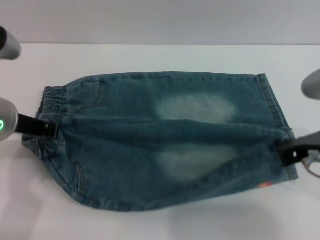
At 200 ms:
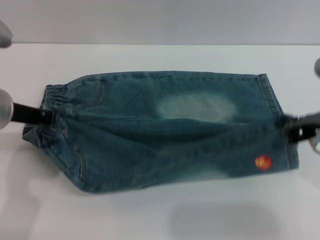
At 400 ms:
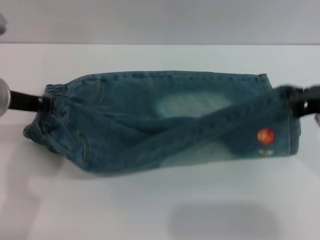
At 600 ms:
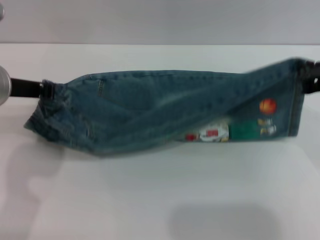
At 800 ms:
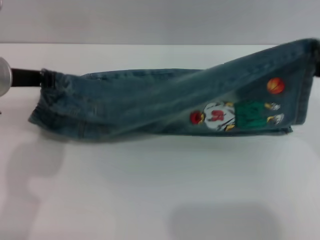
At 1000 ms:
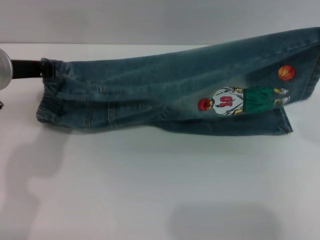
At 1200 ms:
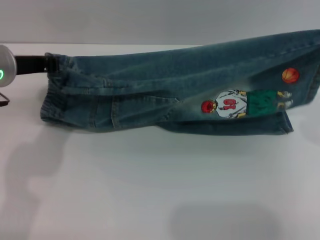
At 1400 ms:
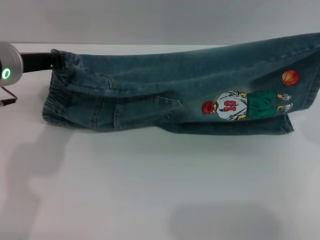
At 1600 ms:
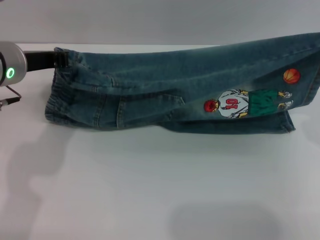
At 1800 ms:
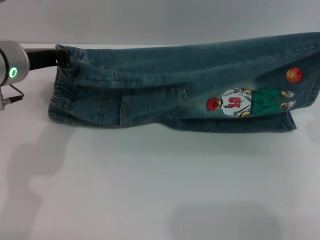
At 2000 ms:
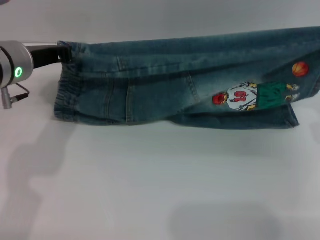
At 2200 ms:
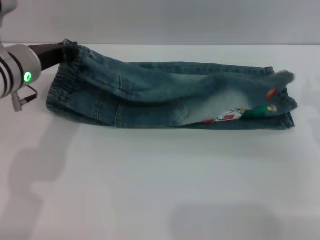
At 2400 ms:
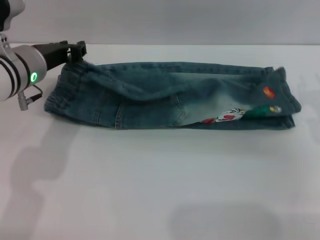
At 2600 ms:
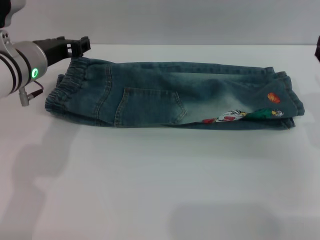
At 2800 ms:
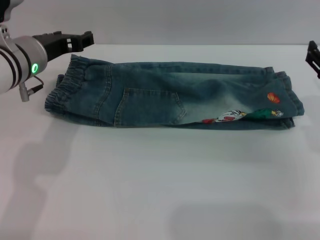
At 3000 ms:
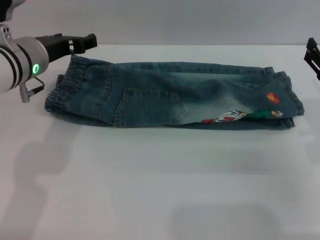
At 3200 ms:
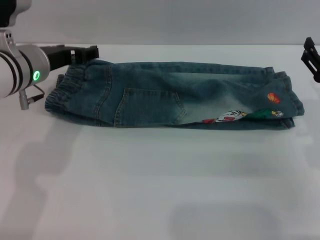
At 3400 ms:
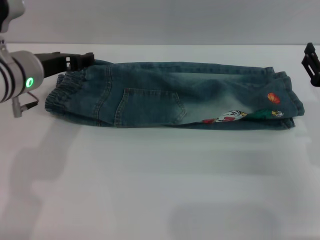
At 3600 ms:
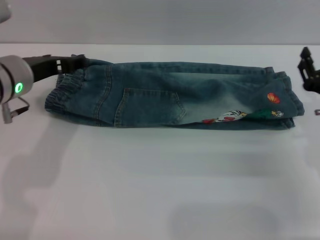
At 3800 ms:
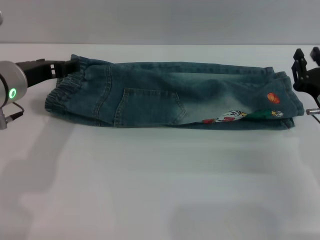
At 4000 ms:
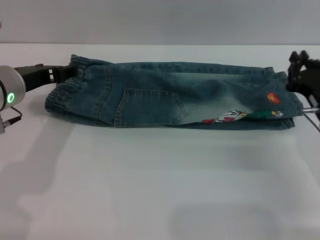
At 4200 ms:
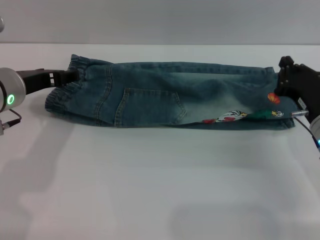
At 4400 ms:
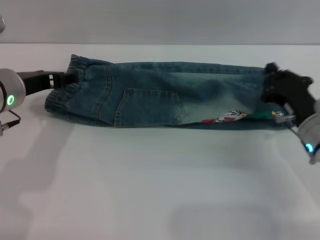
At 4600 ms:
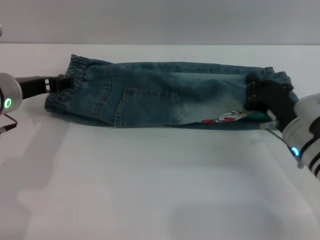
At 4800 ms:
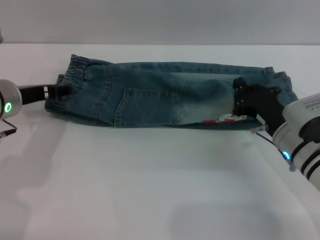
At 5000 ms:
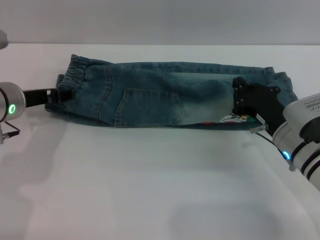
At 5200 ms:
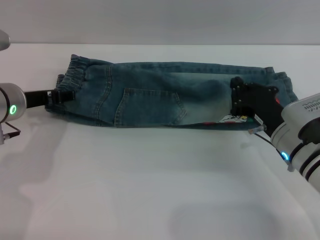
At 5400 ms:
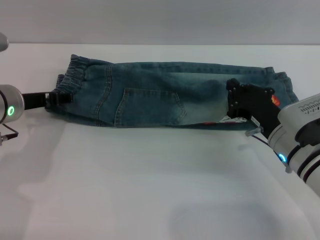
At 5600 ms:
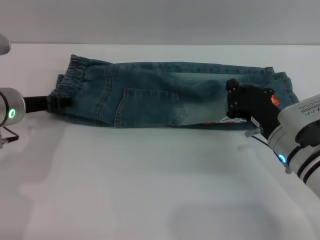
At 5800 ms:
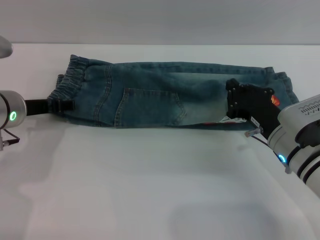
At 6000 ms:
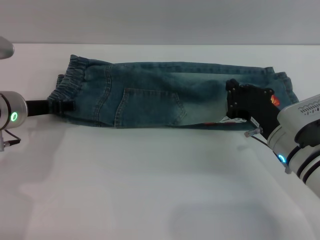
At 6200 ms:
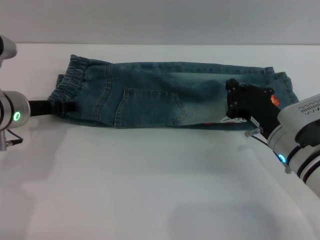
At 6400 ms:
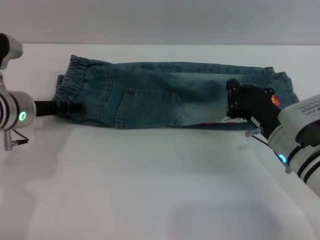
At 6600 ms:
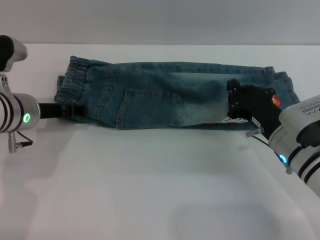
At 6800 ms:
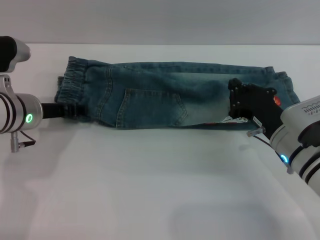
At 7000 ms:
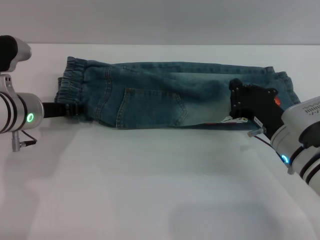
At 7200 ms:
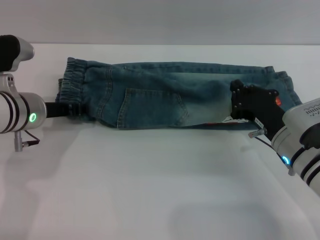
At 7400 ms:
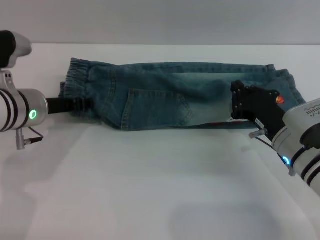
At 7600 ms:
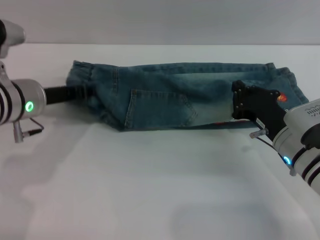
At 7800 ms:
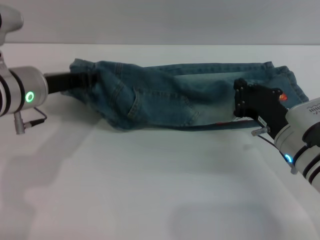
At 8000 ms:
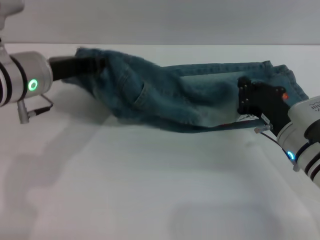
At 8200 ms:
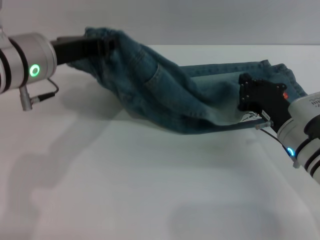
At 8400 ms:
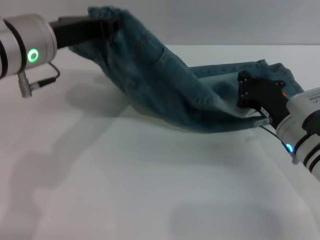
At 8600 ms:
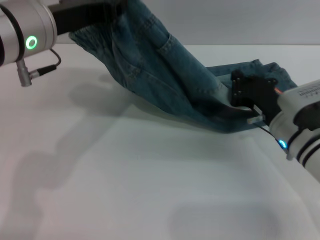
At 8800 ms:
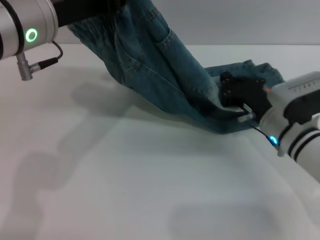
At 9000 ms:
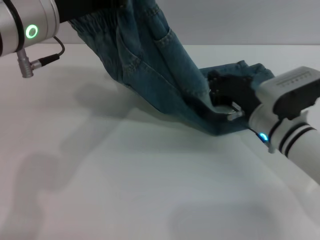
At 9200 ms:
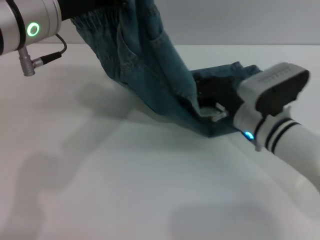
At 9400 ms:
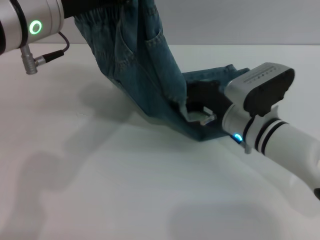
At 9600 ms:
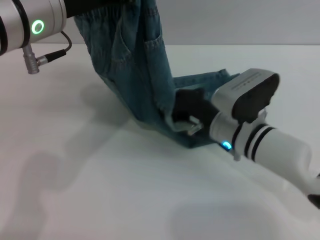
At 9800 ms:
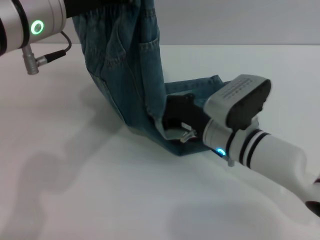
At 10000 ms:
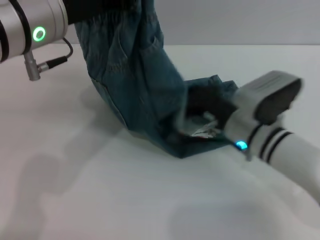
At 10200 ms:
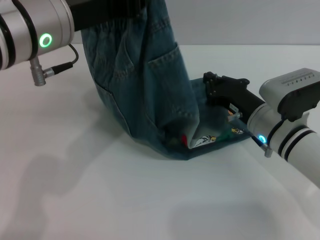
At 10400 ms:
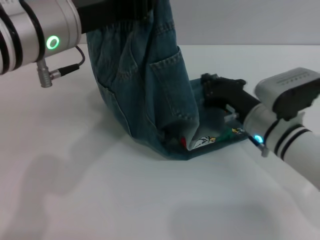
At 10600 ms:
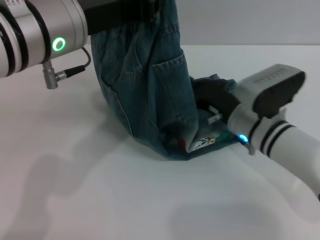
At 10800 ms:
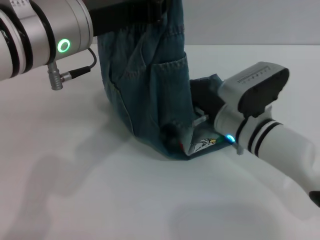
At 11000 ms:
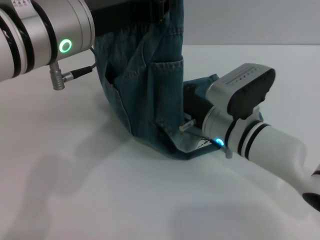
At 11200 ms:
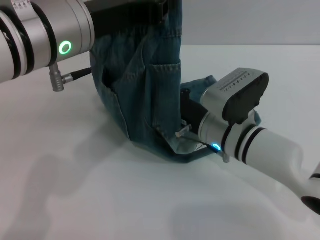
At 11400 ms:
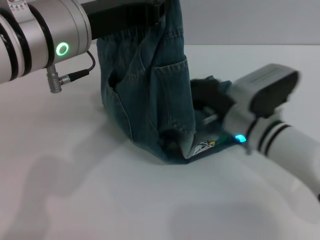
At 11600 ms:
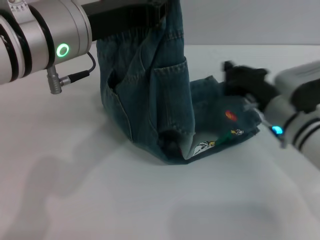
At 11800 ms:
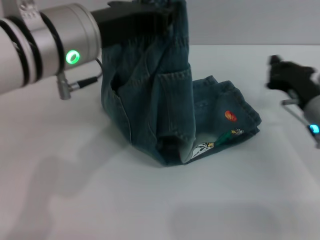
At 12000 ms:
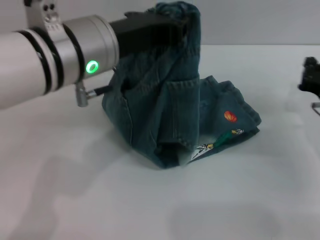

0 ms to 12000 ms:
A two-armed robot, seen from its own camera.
Step, 0 ms to 2800 ms: Fold the bottom of the pants upward with both grippers.
0 ms to 1600 ms: The right gripper goes about 5 cm to the right.
1600 ms to 3000 ms: The right gripper travels downward by approximately 5 cm, and opens, while the left gripper opens its fingers.
3000 ms to 4400 ms: The right gripper travels downward by approximately 5 cm, and closes up, while the left gripper changes place by about 5 cm.
4400 ms to 6000 ms: The grippers stay close to where they were, moving slightly.
6000 ms to 7600 ms: The left gripper closes.
7600 ms to 9000 ms: The right gripper moves some 5 cm; the left gripper shifts some 15 cm upward.
10400 ms to 12000 ms: The right gripper shifts some 10 cm to the right.

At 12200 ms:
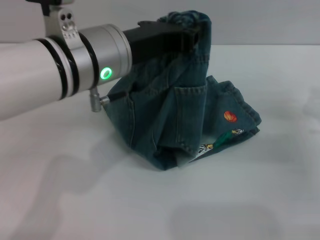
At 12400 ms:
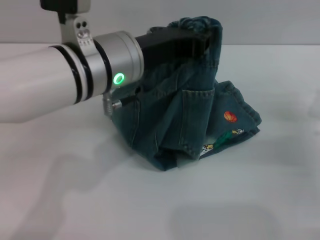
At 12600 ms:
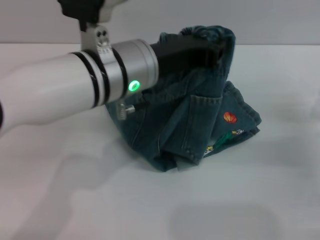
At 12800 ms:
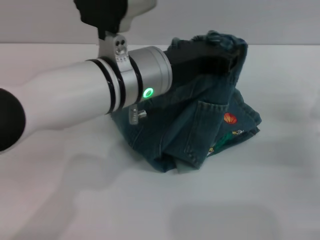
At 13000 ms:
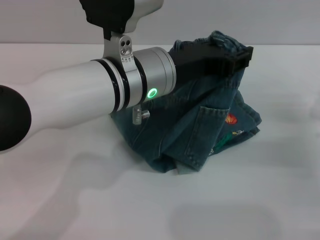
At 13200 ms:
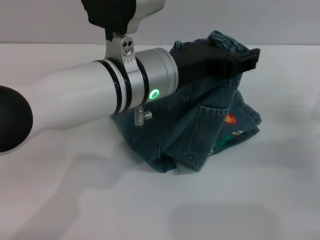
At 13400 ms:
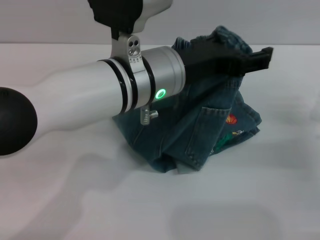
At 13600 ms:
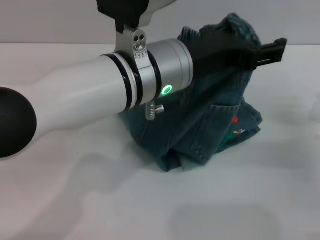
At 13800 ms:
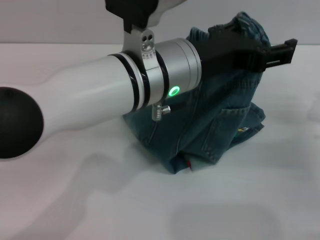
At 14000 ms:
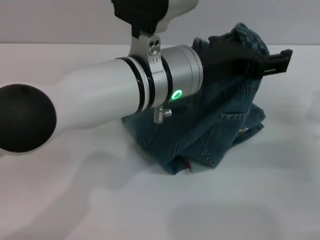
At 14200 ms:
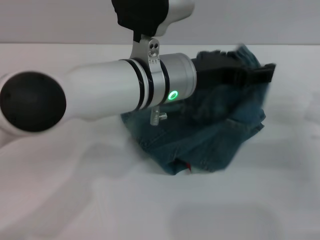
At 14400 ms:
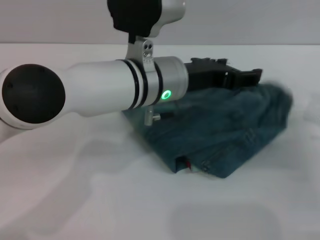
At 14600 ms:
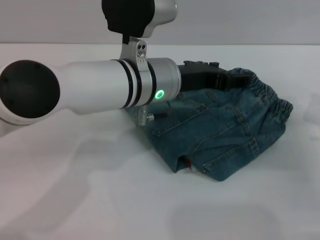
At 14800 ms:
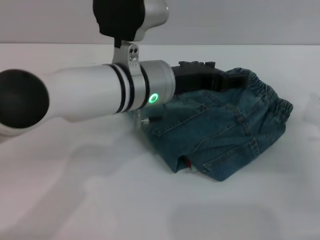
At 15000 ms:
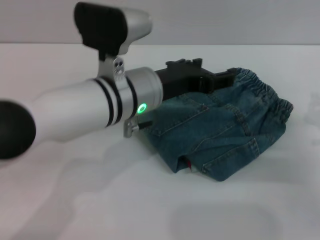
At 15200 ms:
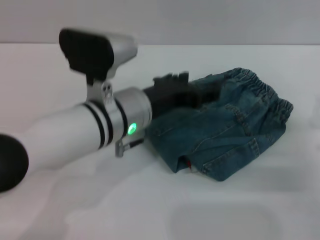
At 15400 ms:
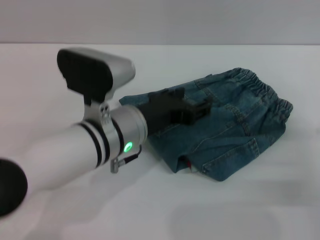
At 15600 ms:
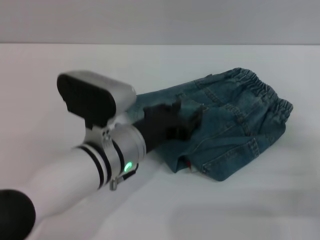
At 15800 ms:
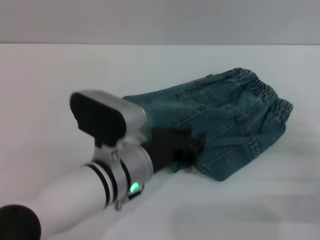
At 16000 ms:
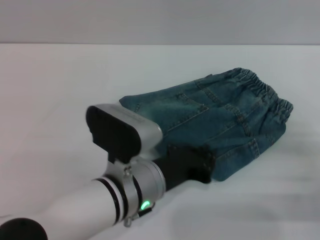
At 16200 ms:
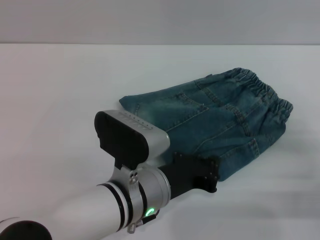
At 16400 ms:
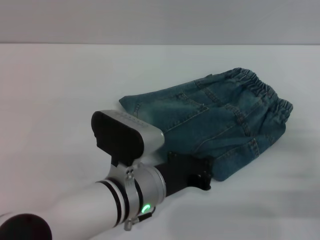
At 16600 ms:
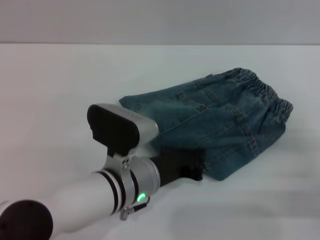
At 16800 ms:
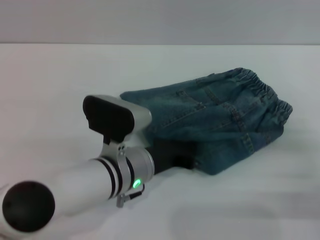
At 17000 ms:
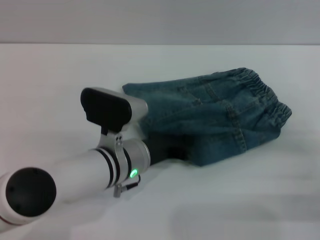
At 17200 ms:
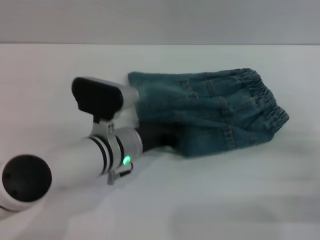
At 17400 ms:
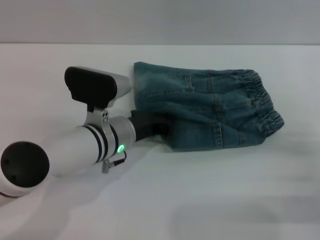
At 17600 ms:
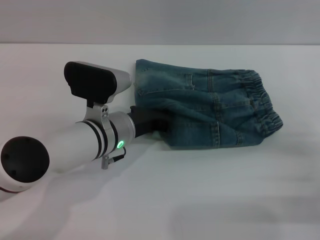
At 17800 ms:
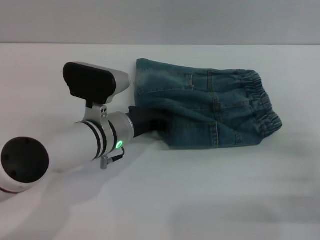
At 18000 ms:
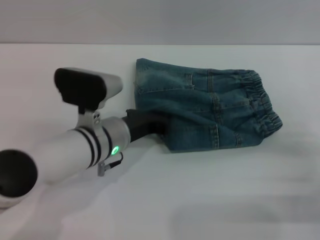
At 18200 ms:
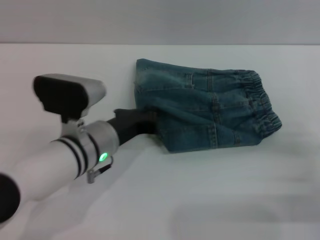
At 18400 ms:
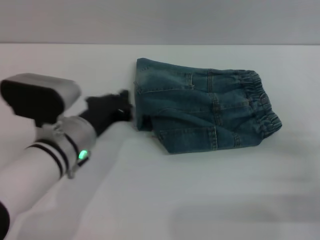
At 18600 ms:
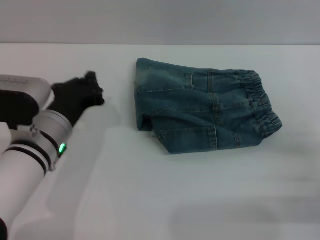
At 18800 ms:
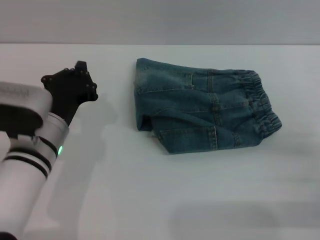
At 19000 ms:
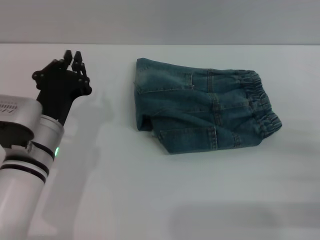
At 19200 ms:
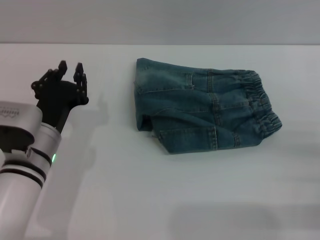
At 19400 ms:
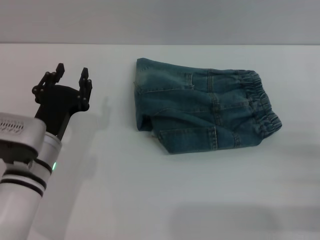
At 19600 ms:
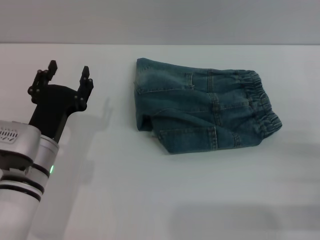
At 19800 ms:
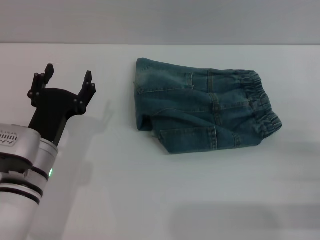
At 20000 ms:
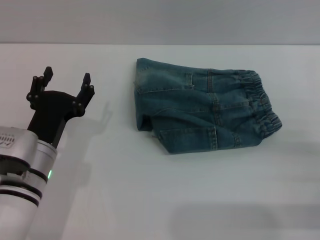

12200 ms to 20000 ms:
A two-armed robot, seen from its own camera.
Step, 12200 ms to 14600 ms: Fold the pants from left to right with the left gripper.
Step, 14800 ms to 18400 ms: Place the folded trousers onto the center area with the left grippers.
12200 ms to 13800 ms: The left gripper shifts about 5 cm to the right, and opens its fingers.
13800 ms to 15400 ms: The left gripper travels downward by approximately 10 cm; the right gripper heads backward, covering approximately 5 cm.
15400 ms to 16800 ms: The left gripper moves downward, approximately 5 cm, and closes up.
16800 ms to 18400 ms: The left gripper travels to the left by approximately 5 cm.
18400 ms to 20000 ms: The left gripper moves approximately 5 cm, and opens its fingers. The right gripper opens.
